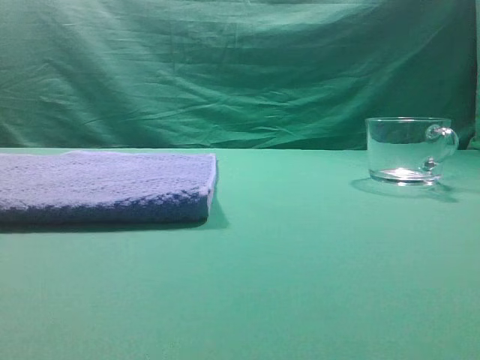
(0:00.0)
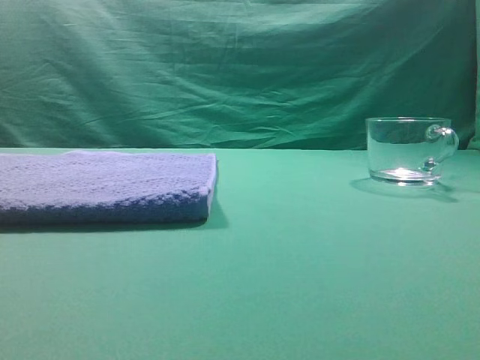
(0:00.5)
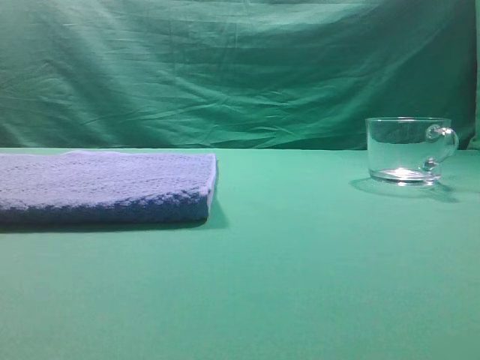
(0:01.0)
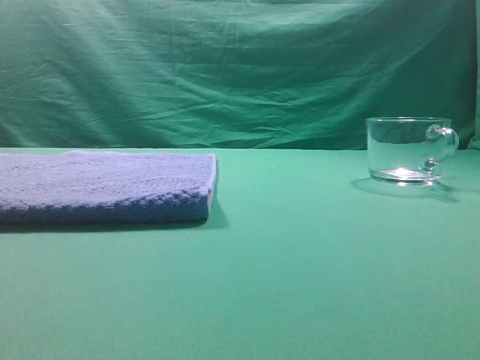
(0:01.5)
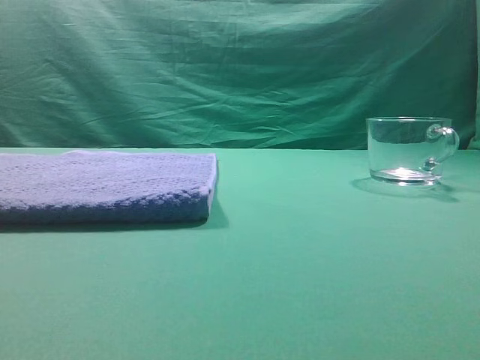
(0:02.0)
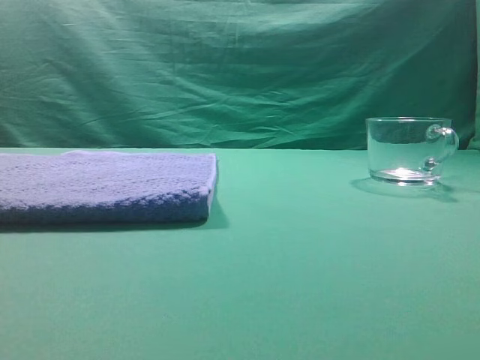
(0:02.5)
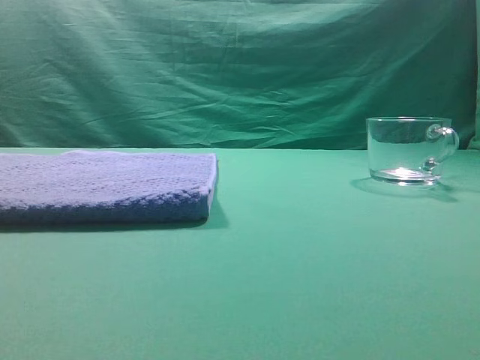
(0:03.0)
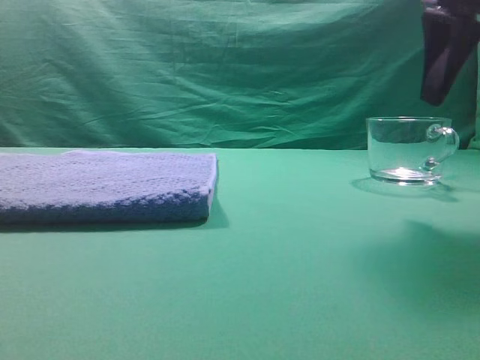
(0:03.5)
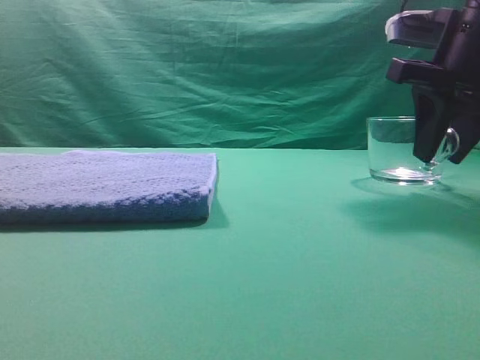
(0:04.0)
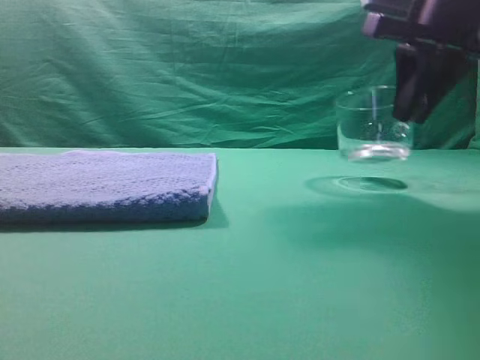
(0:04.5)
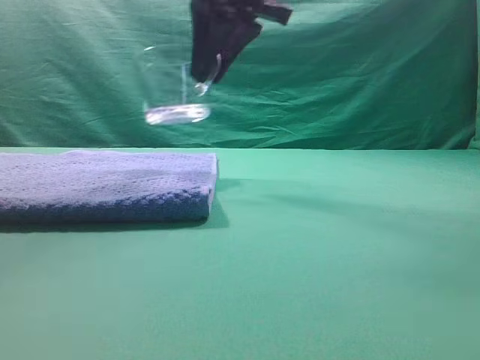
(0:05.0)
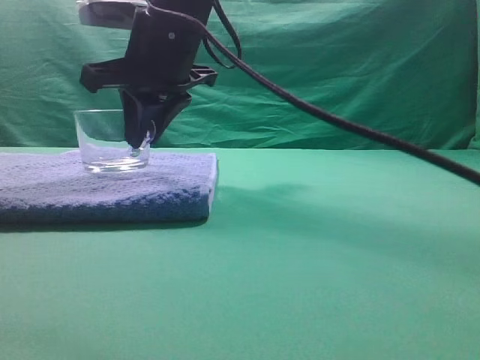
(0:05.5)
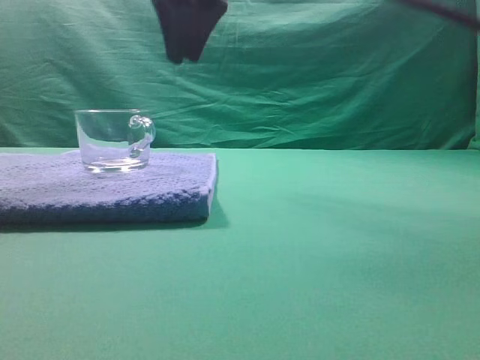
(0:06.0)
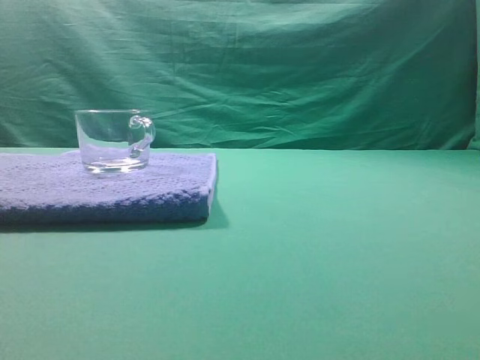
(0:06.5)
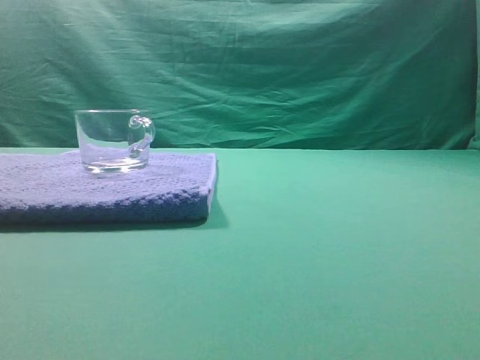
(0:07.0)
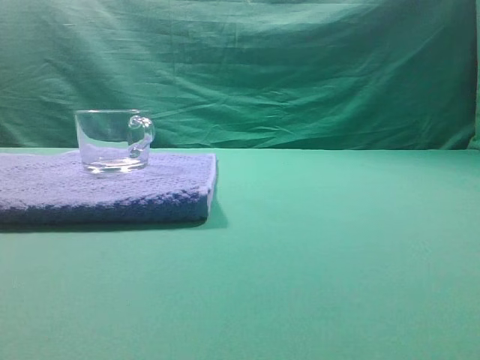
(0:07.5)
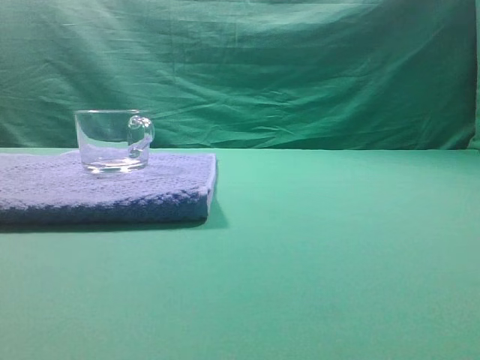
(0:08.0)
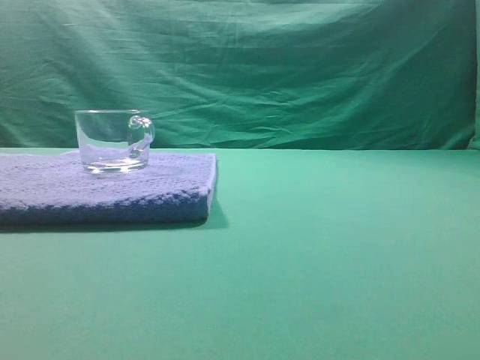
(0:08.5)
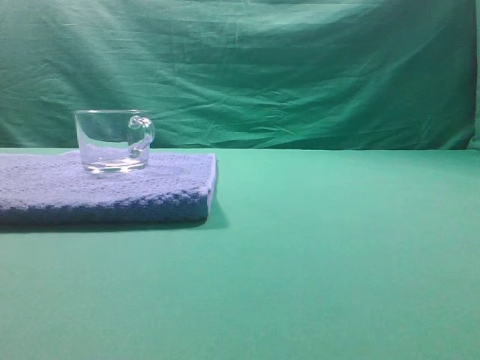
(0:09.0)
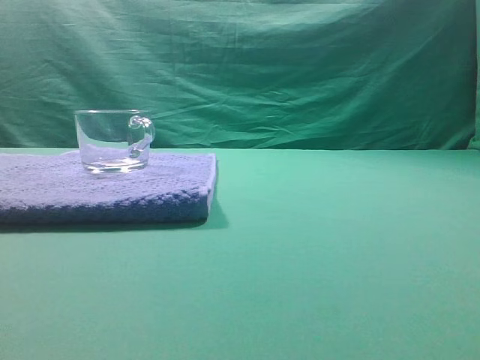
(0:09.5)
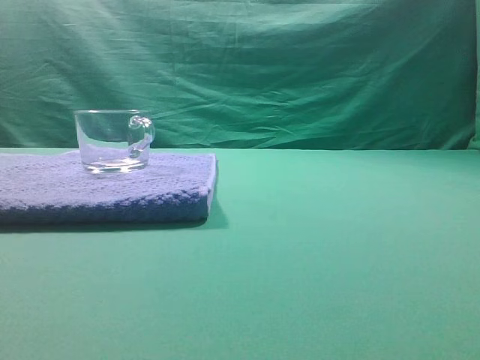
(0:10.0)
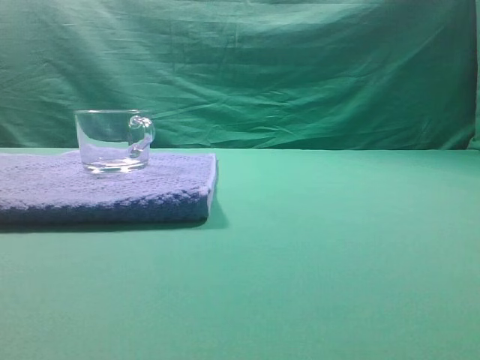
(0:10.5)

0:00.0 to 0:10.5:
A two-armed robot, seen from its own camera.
Task of the whole recording: grasp the transparent glass cup and place it within the blue towel.
Step, 0:00.0 to 0:04.0: Grasp the transparent glass cup.
Step, 0:05.0 to 0:05.5: Place the glass cup on the blue zone.

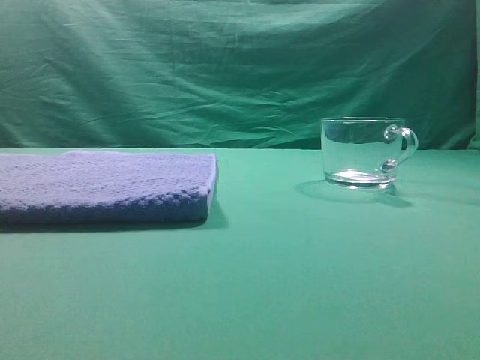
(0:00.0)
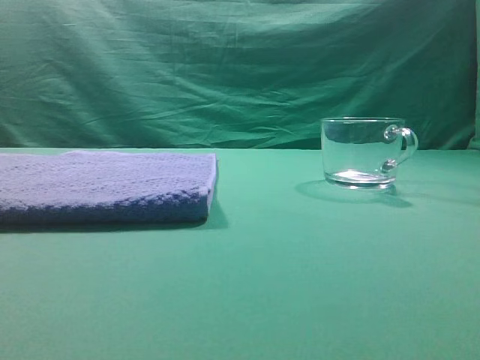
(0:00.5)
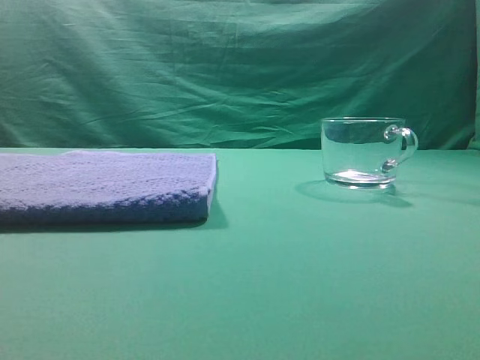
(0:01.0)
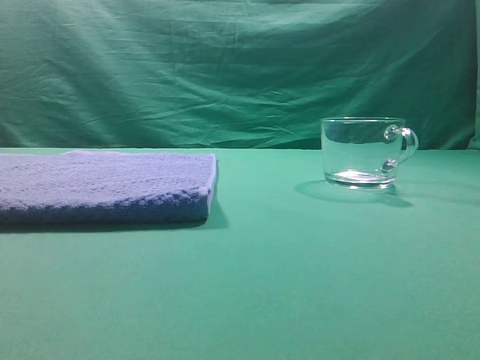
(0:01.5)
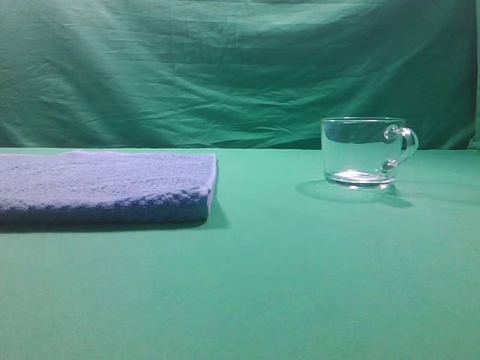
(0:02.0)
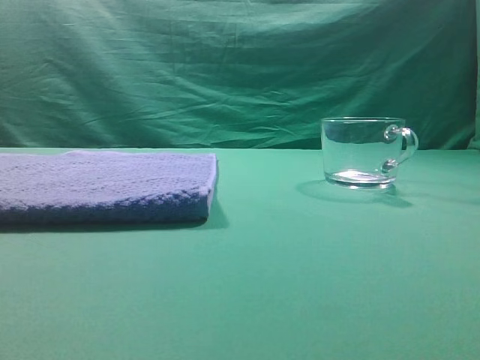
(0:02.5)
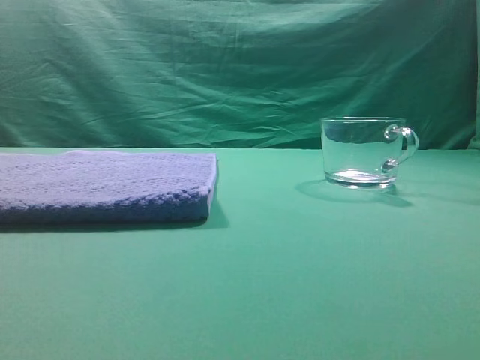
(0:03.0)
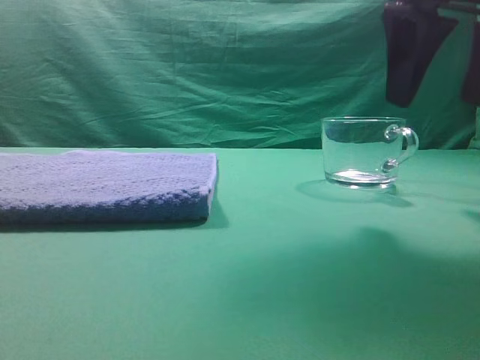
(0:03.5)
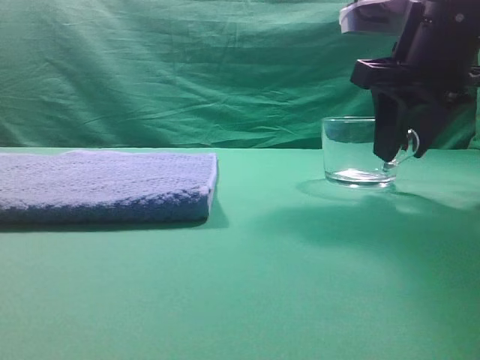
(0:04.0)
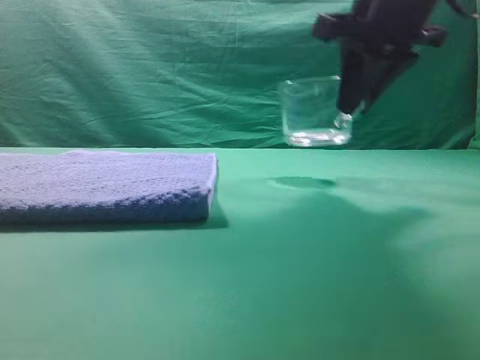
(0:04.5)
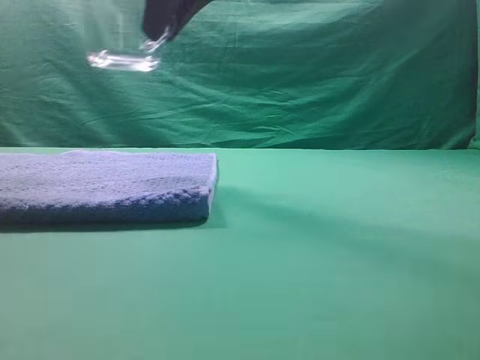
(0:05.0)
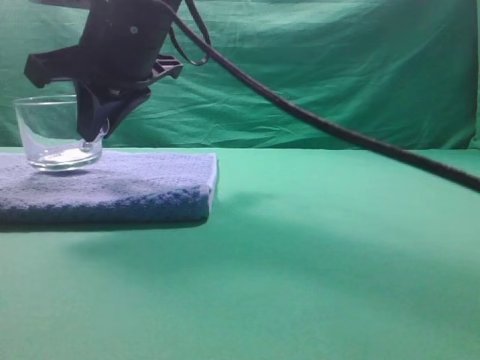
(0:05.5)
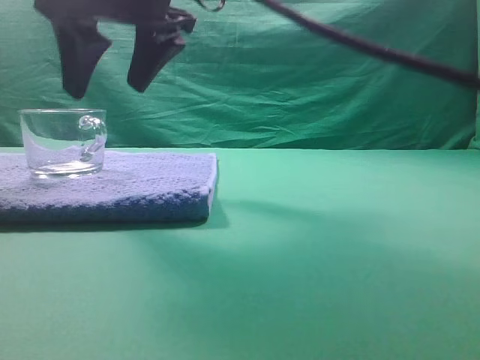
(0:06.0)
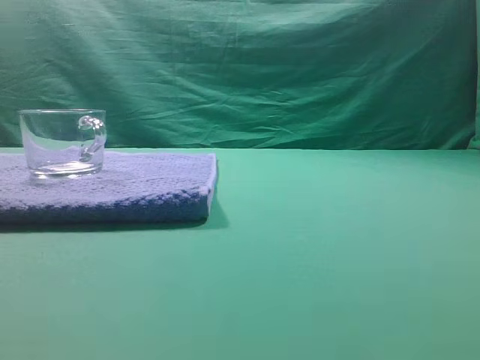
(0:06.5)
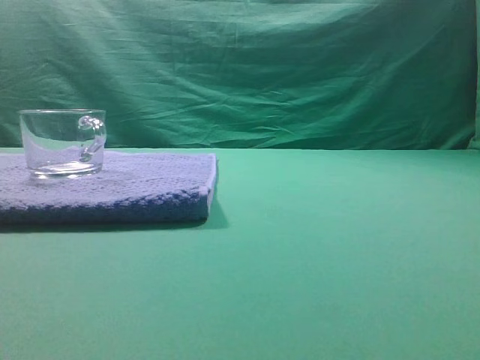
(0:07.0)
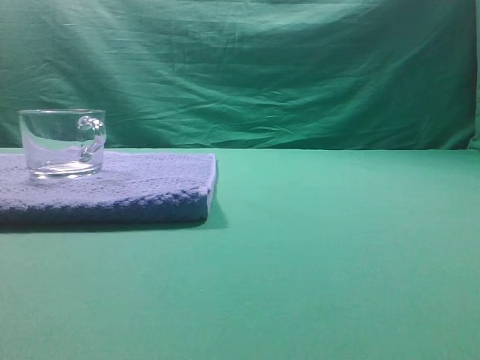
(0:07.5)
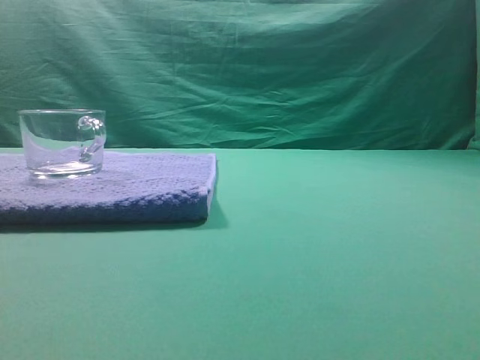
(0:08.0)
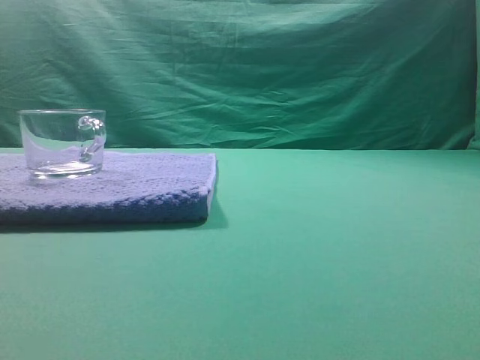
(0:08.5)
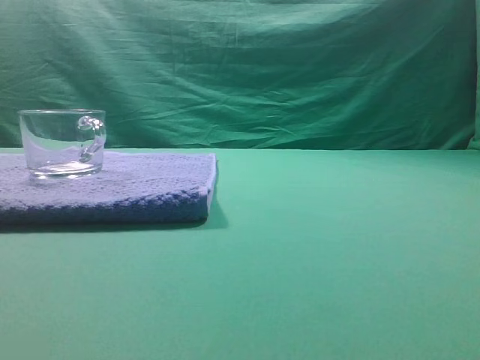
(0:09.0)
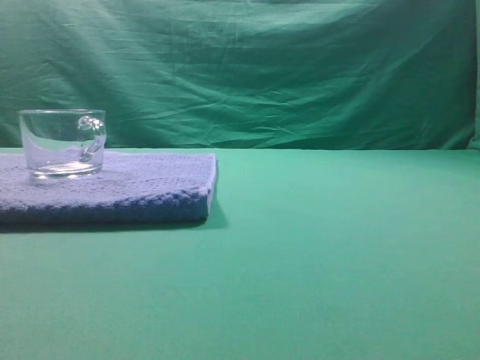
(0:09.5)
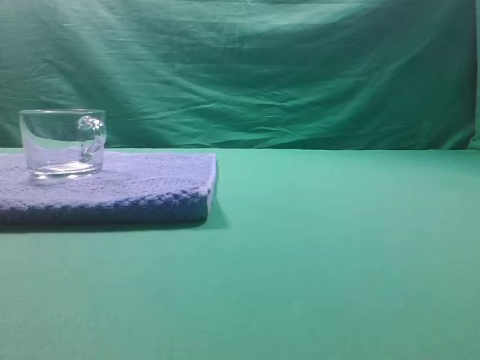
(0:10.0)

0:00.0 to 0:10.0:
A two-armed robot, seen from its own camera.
Task of the whole recording: grasp the transparent glass cup and place it within the blue towel.
Step, 0:00.0 to 0:04.0: Grasp the transparent glass cup.
Step, 0:05.0 to 0:06.0: Place the glass cup on the blue zone.
